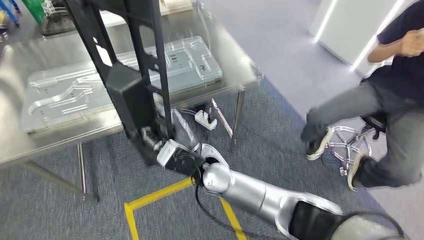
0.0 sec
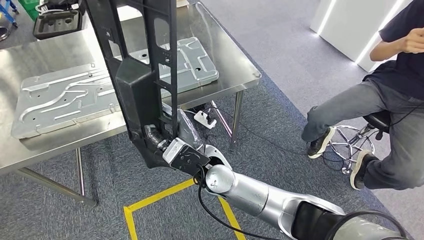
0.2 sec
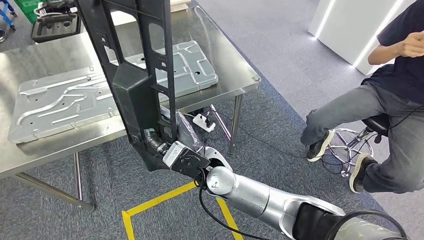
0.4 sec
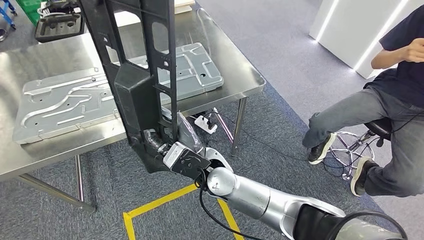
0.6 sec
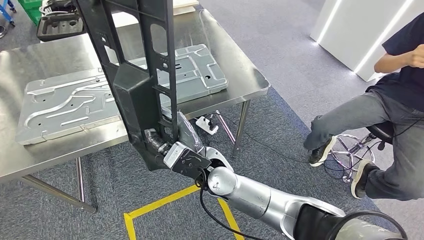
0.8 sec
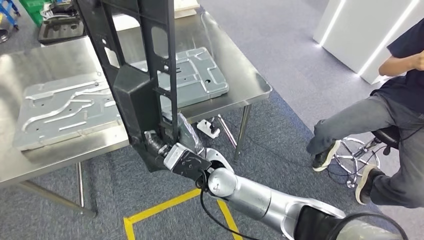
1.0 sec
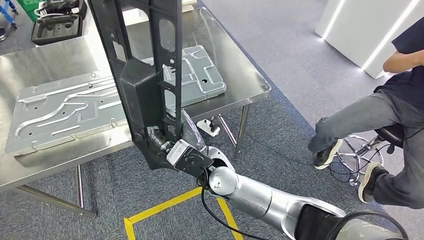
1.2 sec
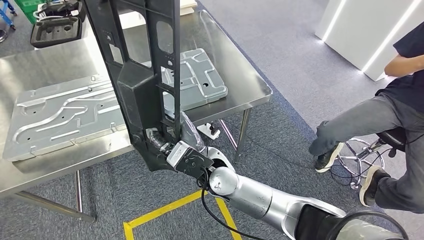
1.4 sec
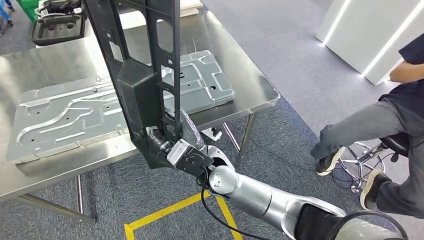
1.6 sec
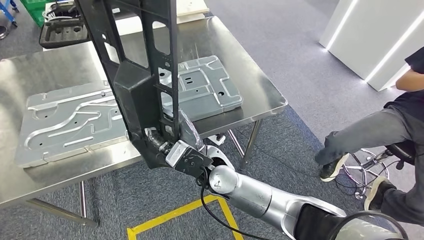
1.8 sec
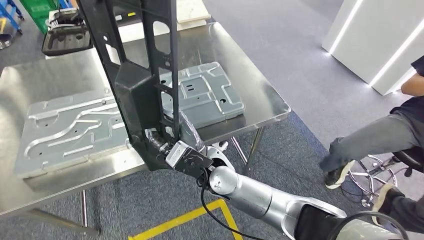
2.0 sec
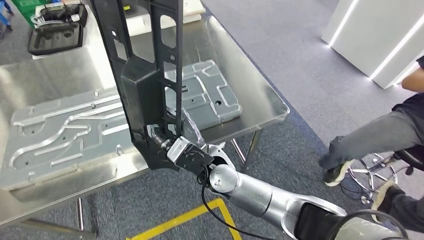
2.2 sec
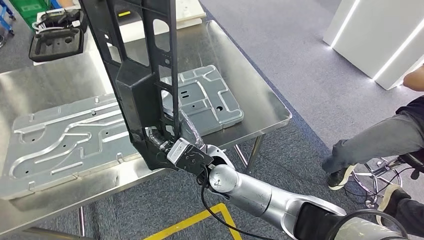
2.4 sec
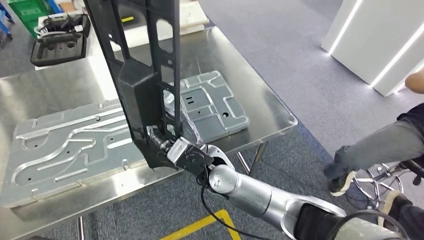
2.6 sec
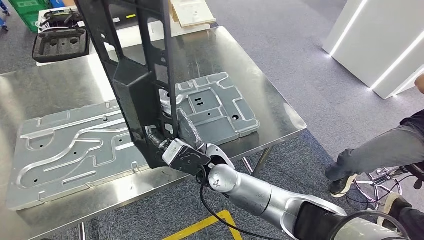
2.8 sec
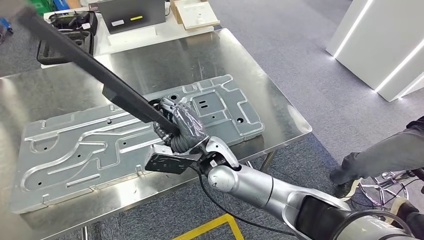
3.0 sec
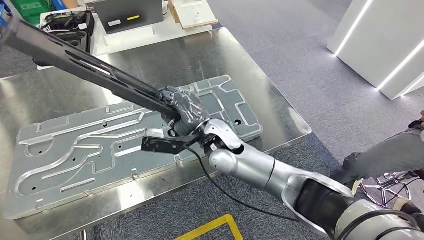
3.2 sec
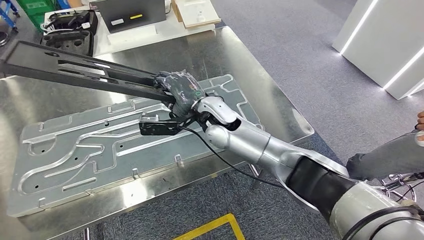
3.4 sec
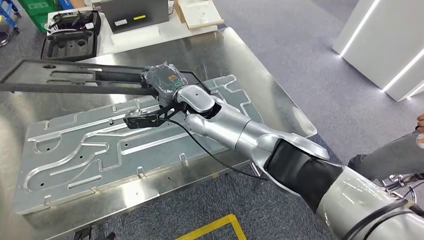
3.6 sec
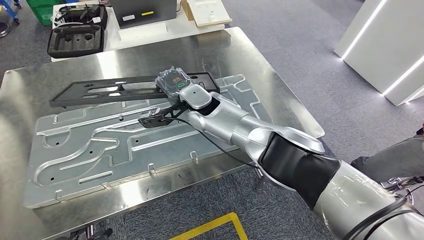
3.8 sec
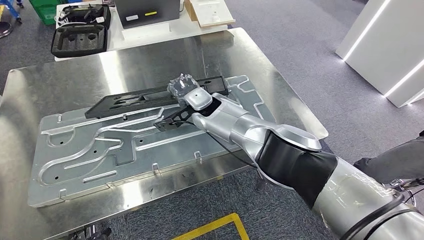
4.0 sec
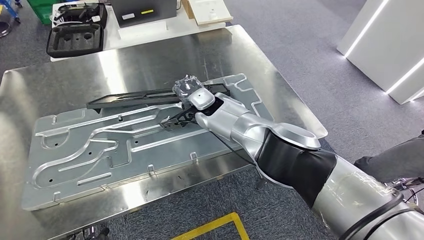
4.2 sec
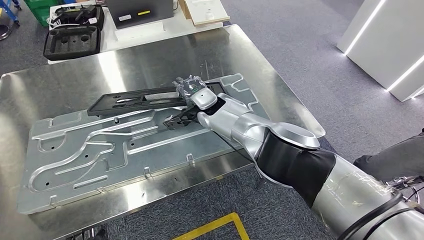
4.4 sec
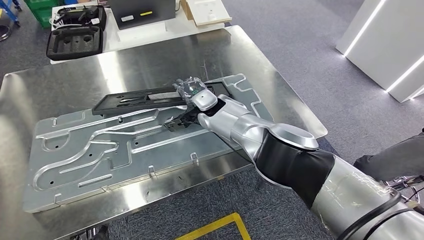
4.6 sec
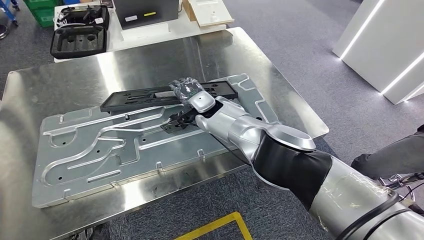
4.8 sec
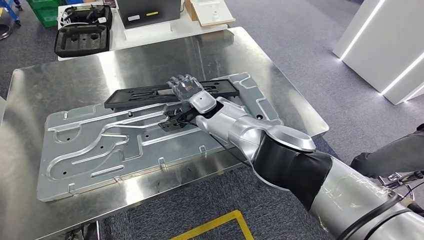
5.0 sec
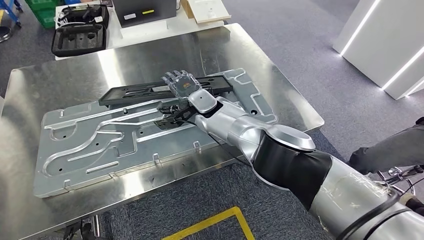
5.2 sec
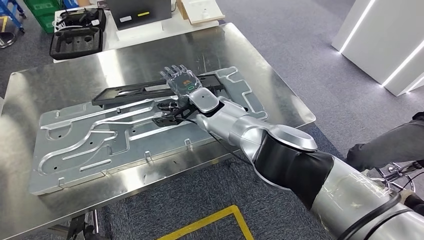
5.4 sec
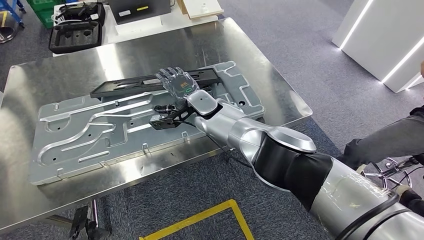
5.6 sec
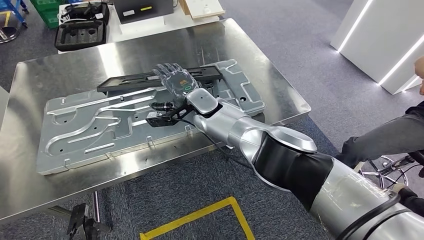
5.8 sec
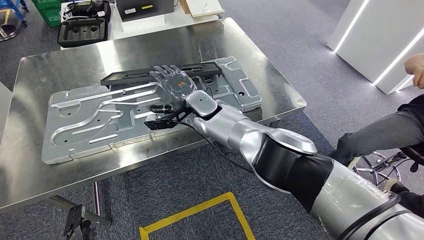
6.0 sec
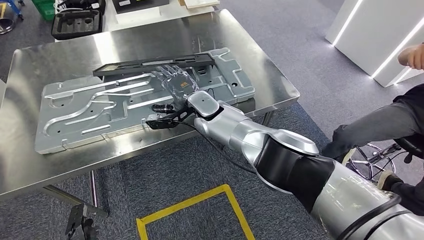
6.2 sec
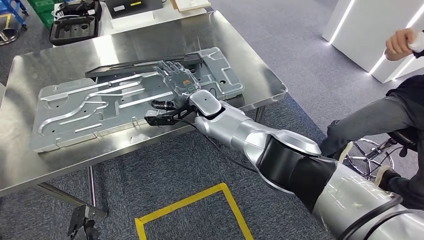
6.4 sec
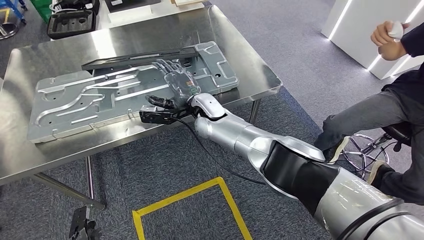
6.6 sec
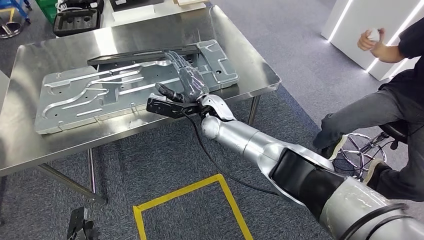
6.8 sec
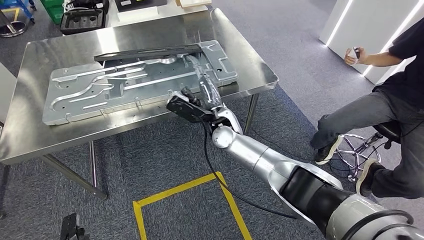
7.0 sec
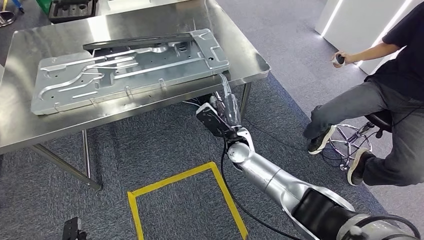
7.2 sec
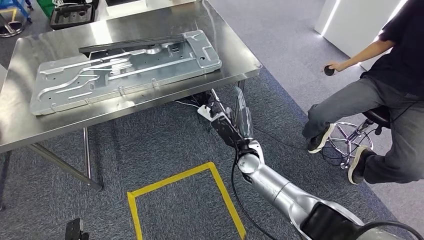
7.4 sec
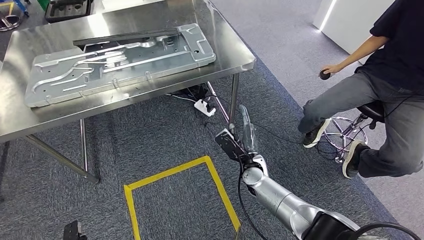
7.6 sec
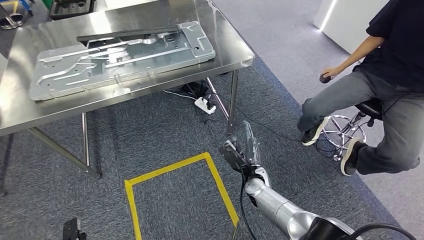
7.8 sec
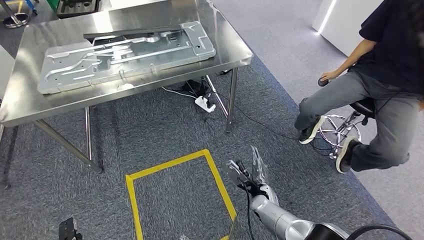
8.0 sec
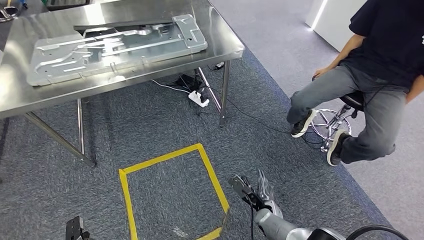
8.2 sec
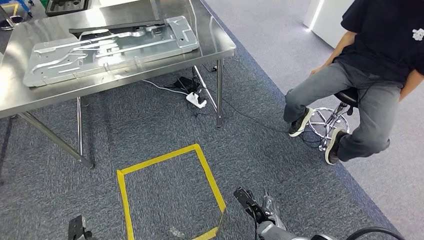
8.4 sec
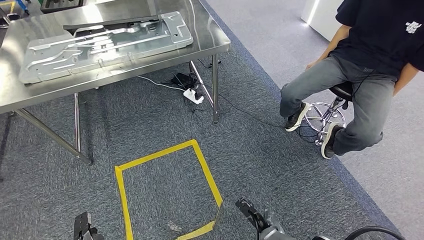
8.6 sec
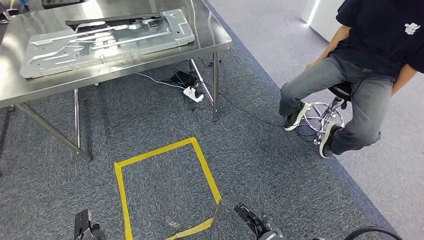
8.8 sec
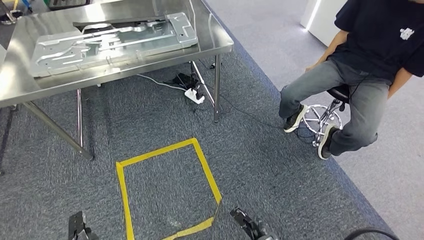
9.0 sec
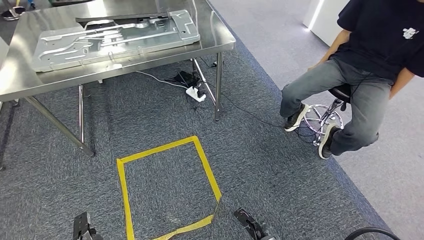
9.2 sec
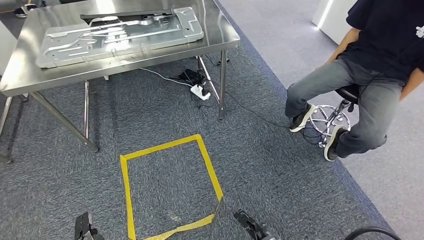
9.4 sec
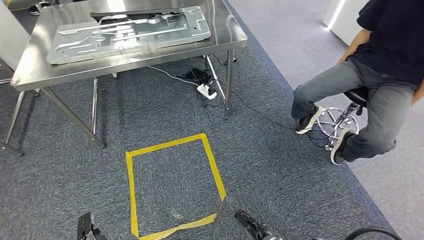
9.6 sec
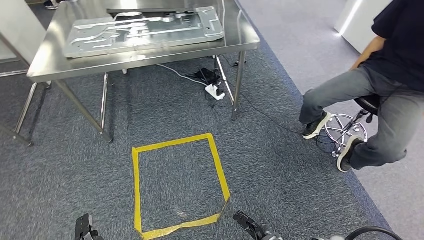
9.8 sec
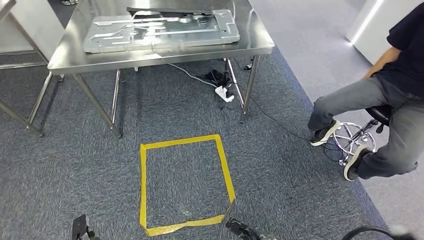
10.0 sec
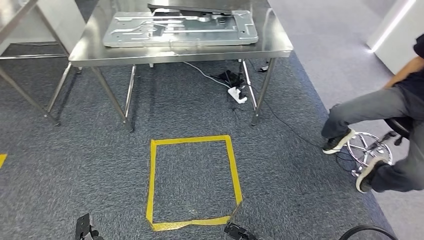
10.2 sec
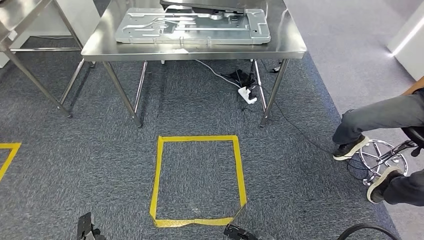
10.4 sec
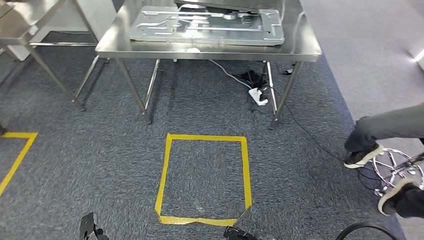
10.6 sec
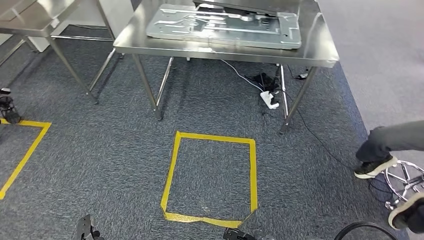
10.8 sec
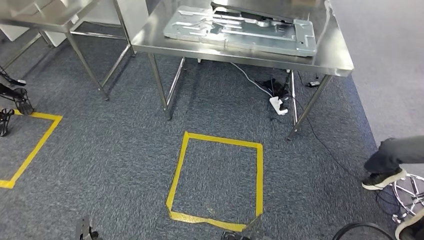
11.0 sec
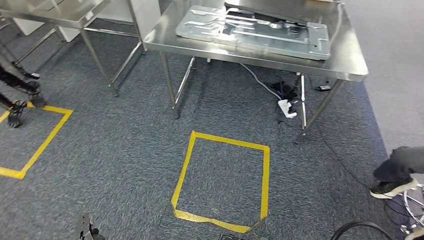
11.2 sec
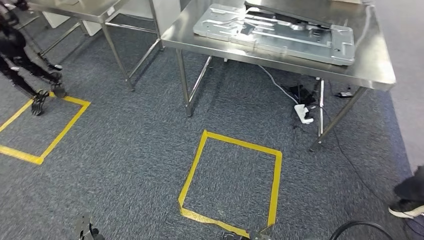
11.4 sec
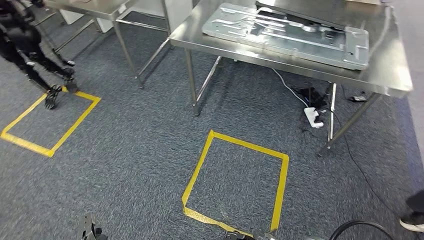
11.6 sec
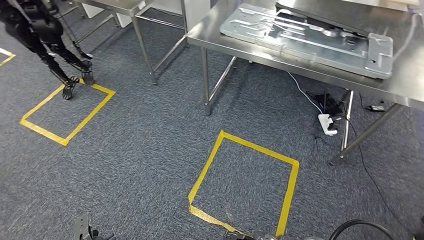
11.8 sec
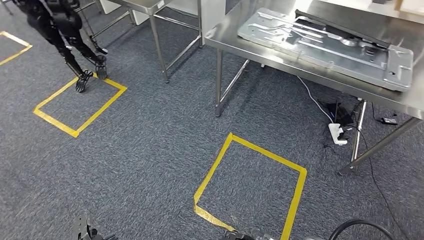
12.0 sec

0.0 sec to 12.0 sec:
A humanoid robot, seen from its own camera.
Step, 0.2 sec to 9.4 sec: Insert the large parts into the corresponding slots on the workbench.

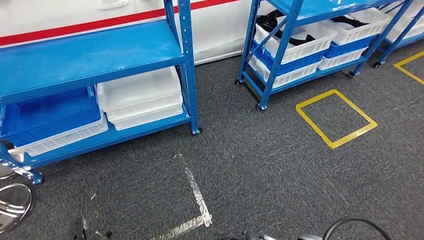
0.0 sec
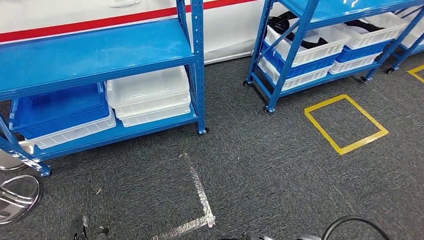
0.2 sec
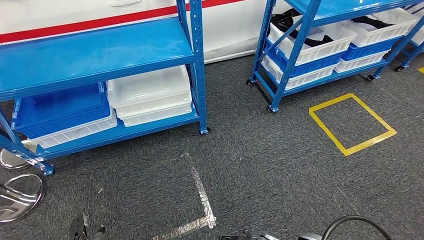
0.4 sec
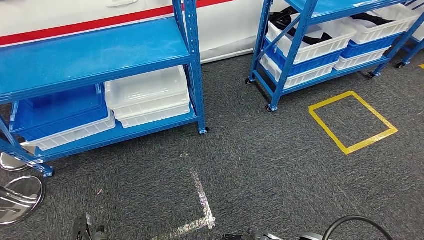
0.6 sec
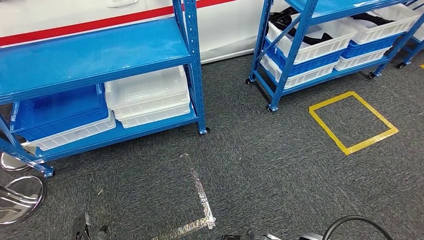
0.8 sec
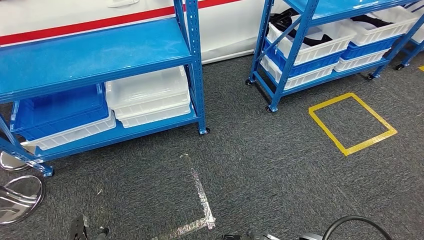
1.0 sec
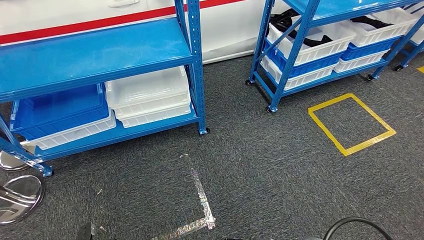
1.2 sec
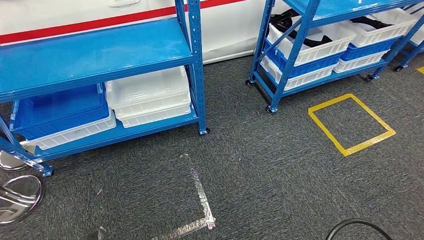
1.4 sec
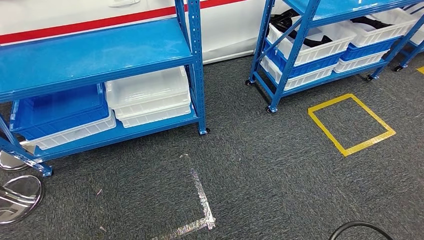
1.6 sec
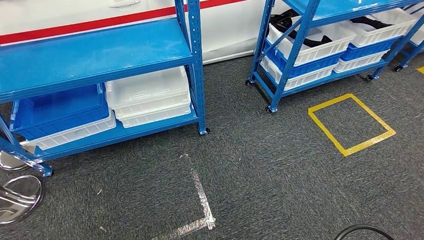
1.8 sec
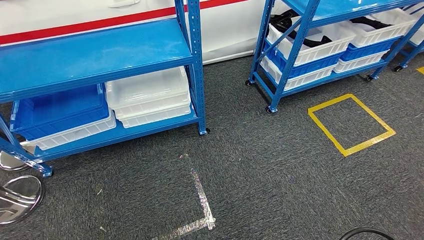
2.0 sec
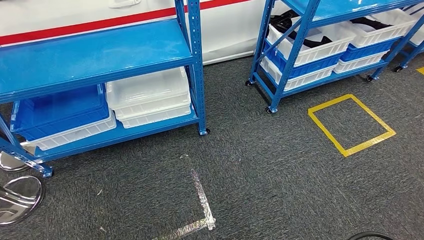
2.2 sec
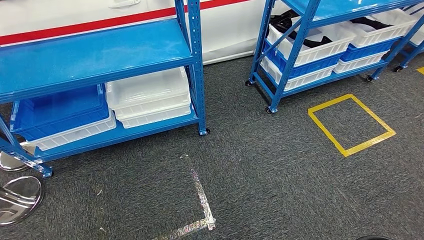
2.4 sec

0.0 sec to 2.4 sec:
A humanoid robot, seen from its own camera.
Step, 0.0 sec to 2.4 sec: Return to the initial position at the shelf.
1.2 sec to 2.4 sec: The right hand goes roughly 10 cm backward. Meanwhile the left hand heads backward, covering about 20 cm.

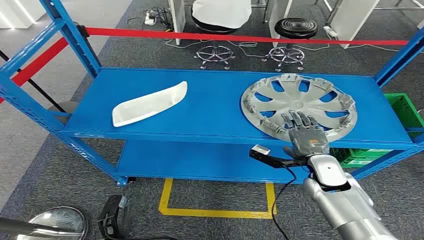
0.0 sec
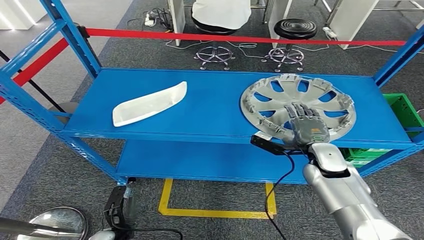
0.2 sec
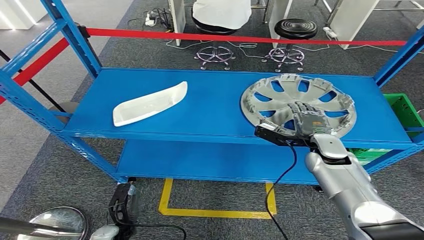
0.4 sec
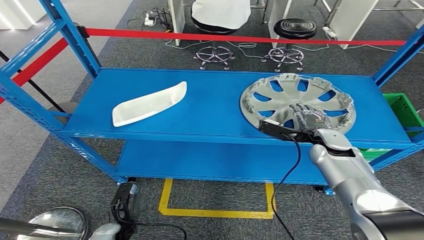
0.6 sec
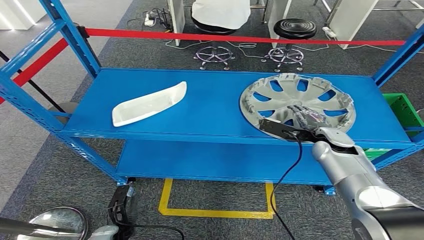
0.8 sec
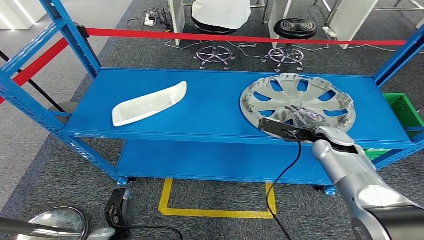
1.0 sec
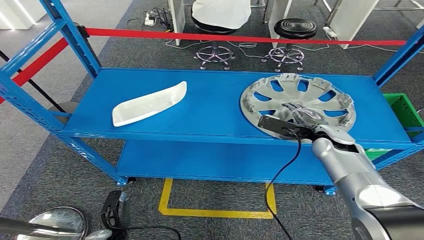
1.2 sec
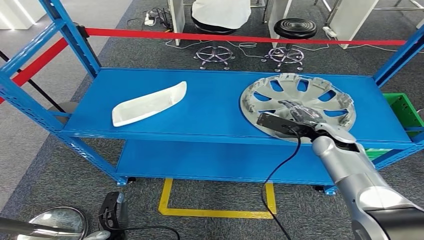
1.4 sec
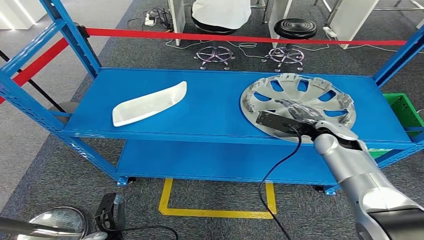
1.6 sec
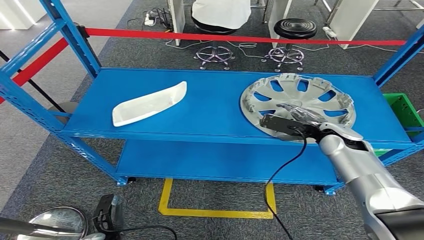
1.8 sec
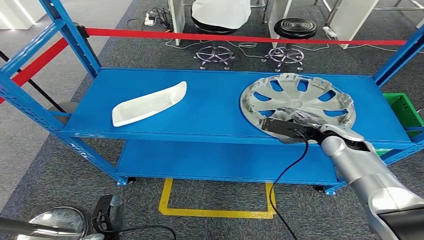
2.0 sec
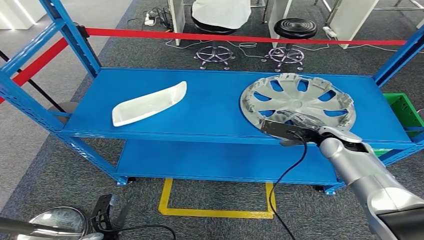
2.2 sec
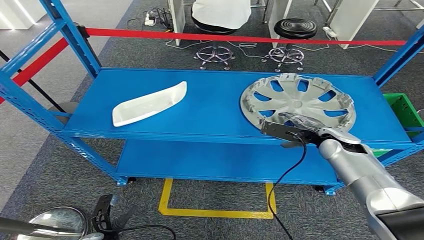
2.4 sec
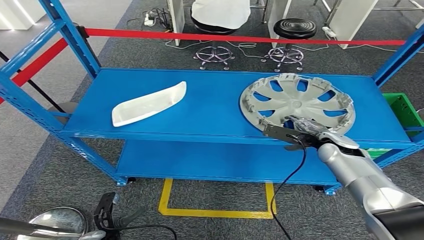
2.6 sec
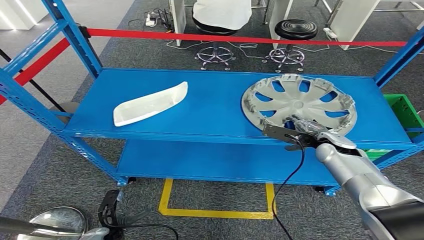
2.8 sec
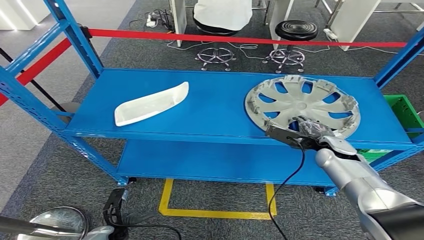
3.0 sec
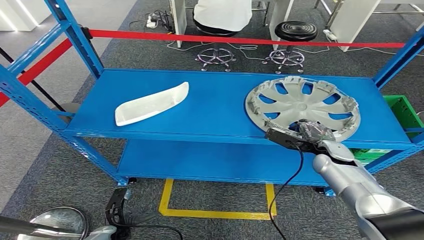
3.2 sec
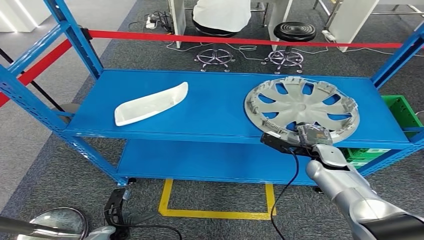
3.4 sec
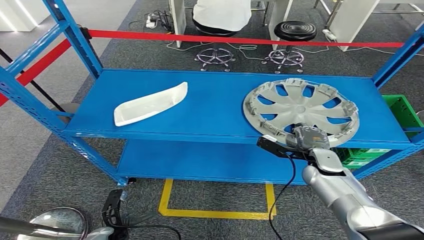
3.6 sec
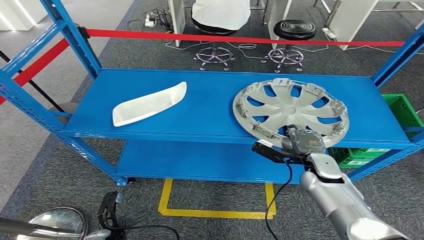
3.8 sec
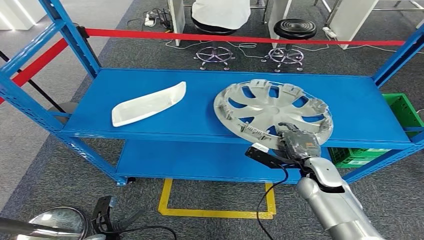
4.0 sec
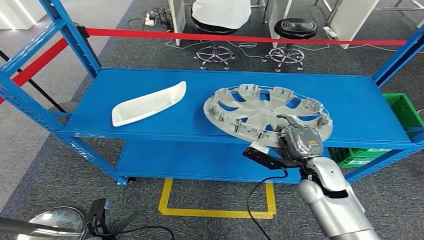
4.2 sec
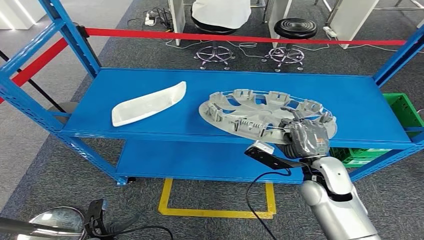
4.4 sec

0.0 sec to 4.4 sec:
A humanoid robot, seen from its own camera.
1.4 sec to 3.0 sec: The right hand travels downward by about 5 cm.
